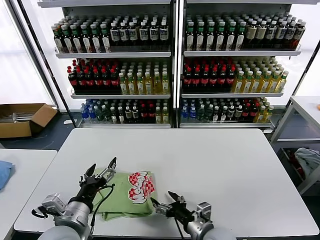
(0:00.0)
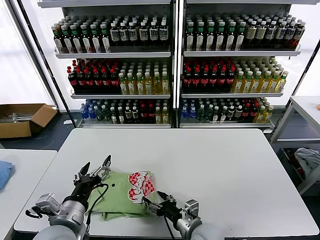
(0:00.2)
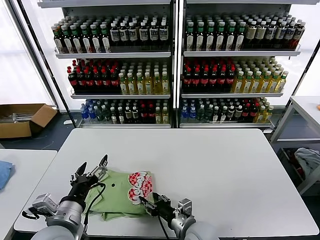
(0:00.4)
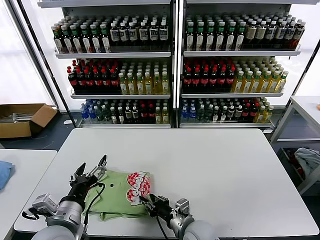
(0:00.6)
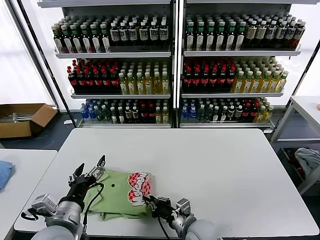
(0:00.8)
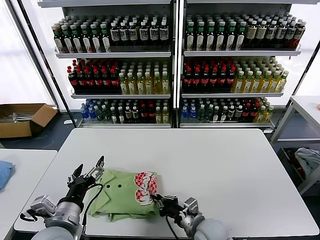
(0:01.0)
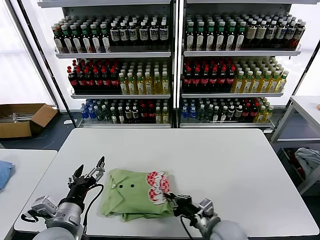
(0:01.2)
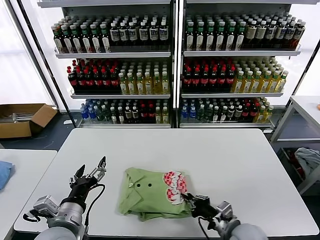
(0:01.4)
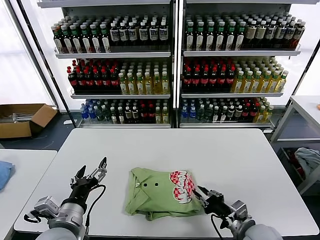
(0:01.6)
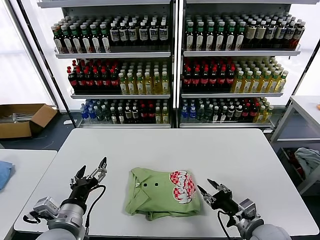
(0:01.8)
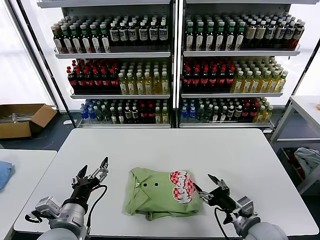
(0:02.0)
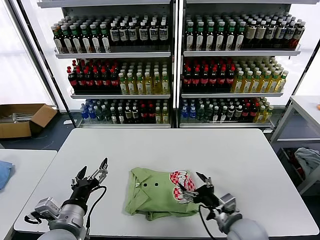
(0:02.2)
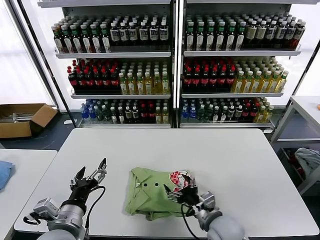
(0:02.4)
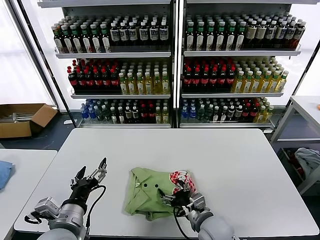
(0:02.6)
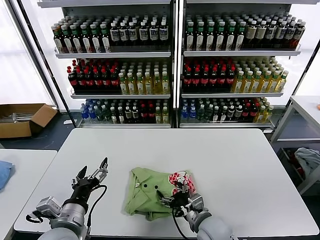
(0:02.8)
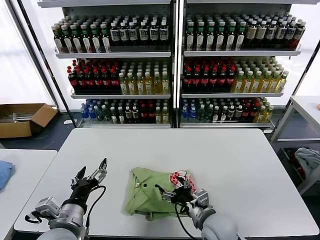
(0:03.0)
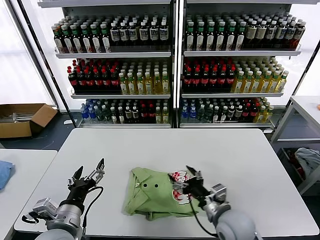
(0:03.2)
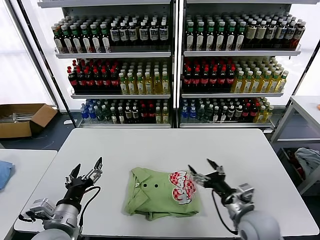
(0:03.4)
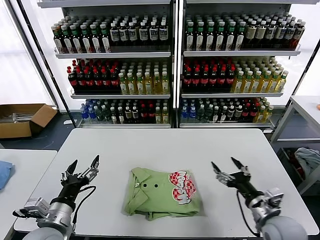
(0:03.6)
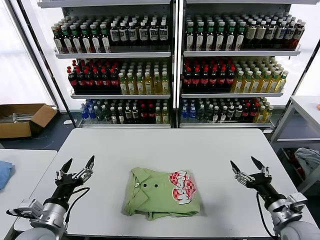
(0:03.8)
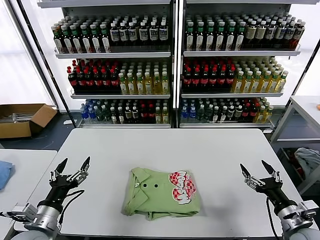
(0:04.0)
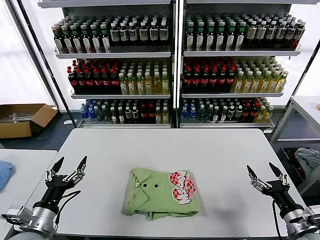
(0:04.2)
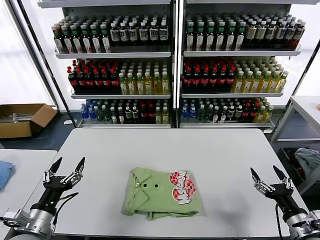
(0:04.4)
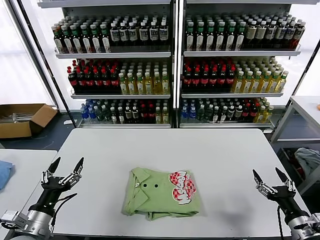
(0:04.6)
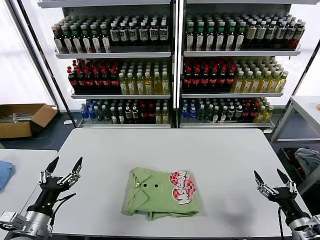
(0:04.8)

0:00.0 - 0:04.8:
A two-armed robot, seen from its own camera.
Task of the whole recording: fold and organize the clothes.
Step, 0:00.0 - 0:03.0: Drag the clothes to the center of the table.
0:00.0 - 0:01.6: The right gripper shifts approximately 10 cm to the right, and closes its fingers.
0:01.6 - 0:03.2: The right gripper heads to the left, covering about 10 cm, and opens up.
0:03.2 - 0:04.8: The left gripper shifts roughly 10 cm to the left; the right gripper goes roughly 20 cm to the right.
